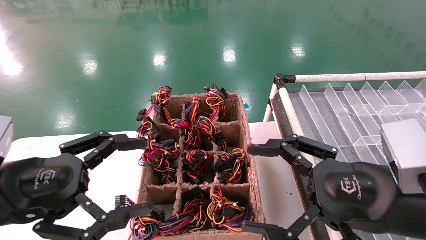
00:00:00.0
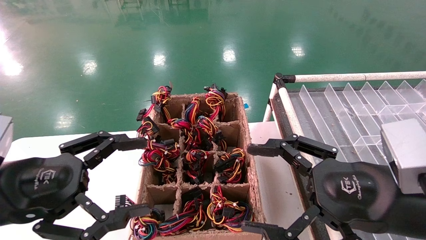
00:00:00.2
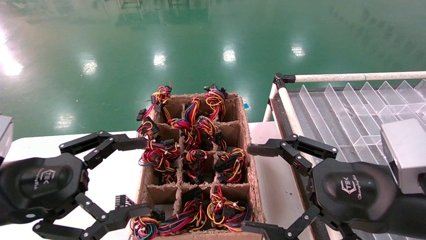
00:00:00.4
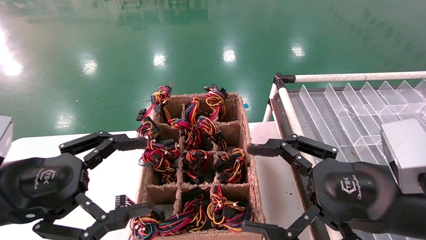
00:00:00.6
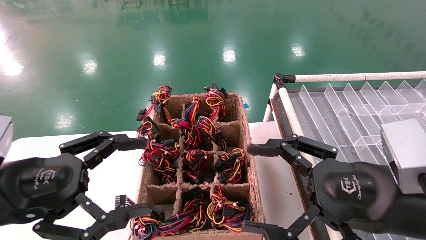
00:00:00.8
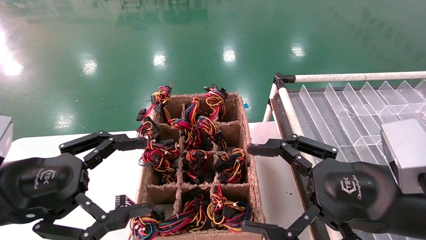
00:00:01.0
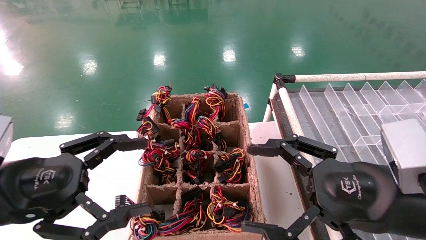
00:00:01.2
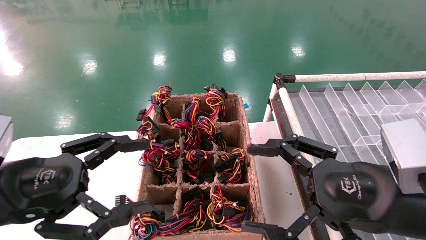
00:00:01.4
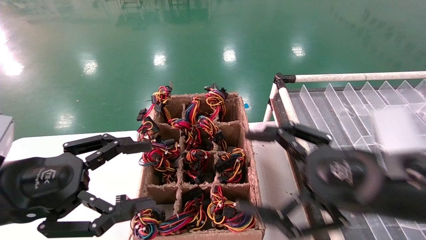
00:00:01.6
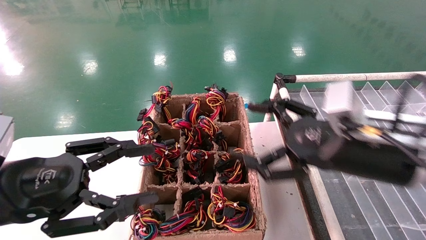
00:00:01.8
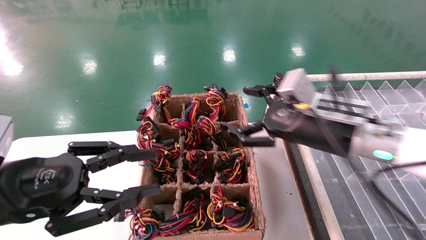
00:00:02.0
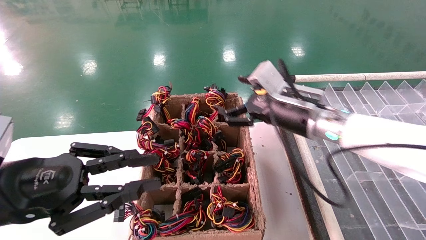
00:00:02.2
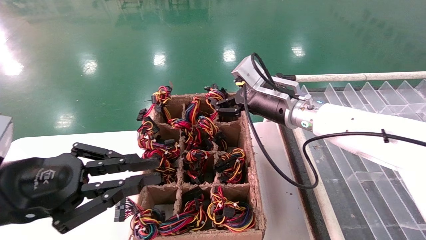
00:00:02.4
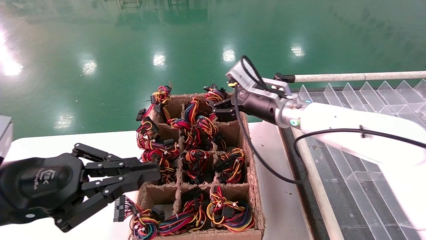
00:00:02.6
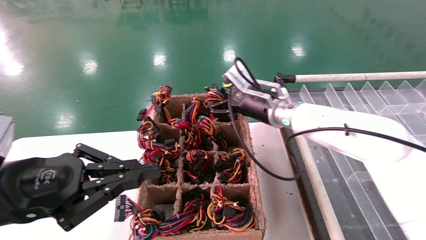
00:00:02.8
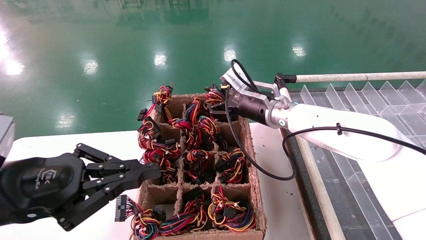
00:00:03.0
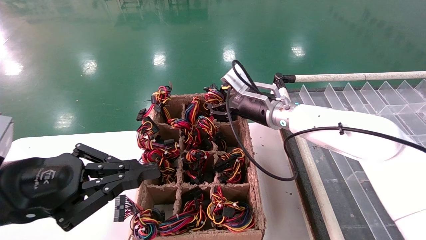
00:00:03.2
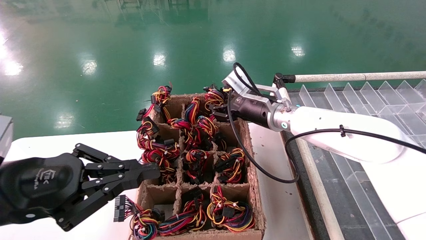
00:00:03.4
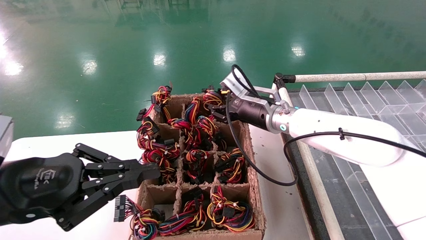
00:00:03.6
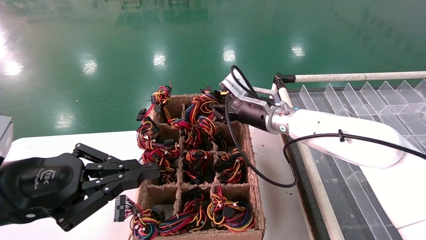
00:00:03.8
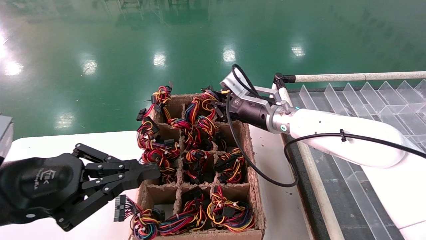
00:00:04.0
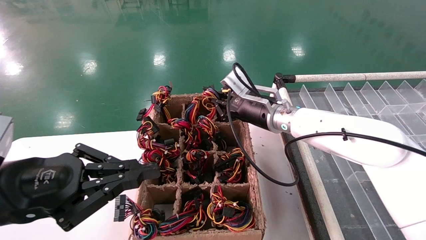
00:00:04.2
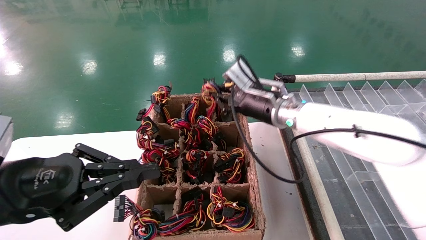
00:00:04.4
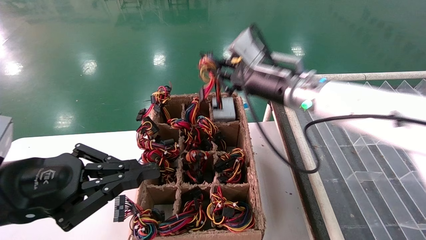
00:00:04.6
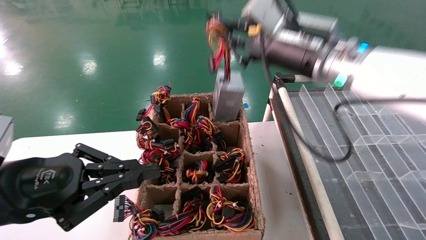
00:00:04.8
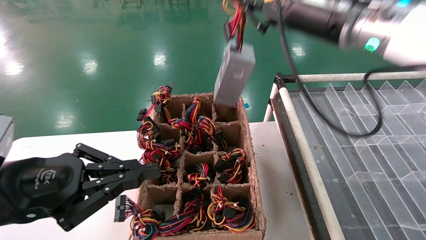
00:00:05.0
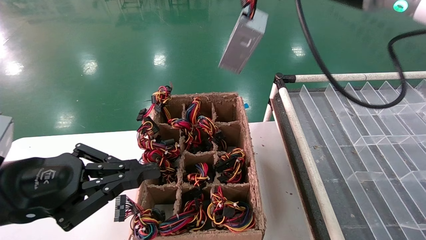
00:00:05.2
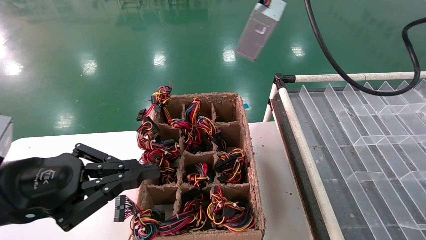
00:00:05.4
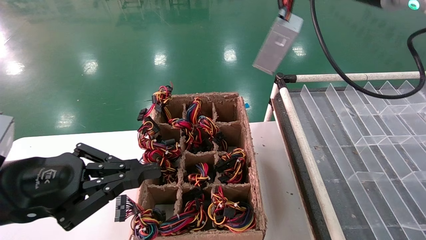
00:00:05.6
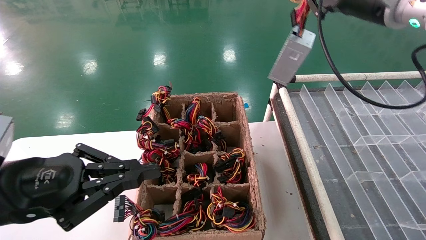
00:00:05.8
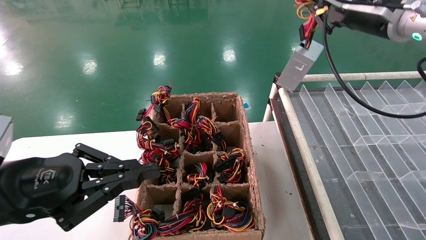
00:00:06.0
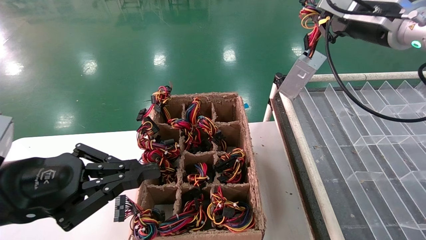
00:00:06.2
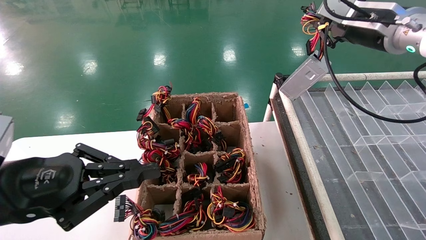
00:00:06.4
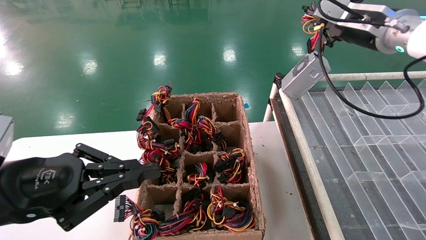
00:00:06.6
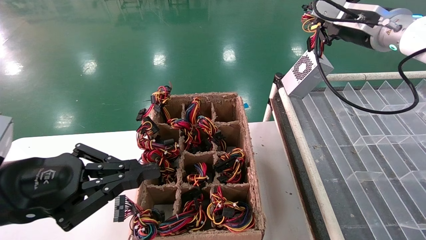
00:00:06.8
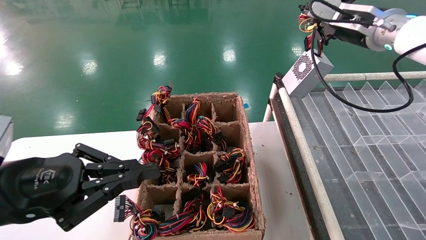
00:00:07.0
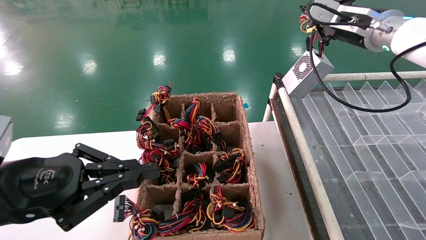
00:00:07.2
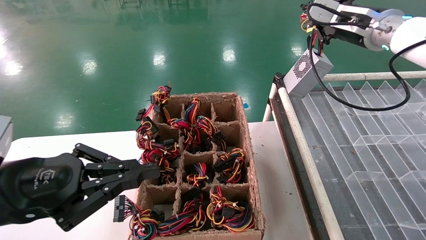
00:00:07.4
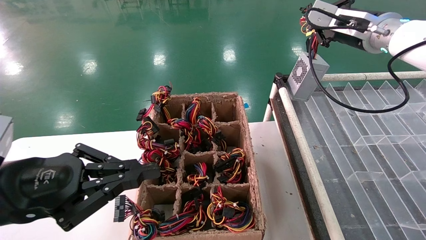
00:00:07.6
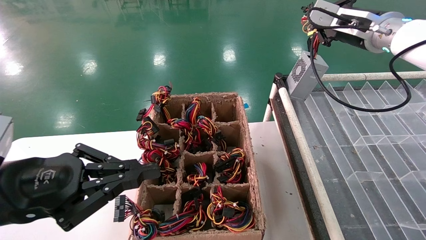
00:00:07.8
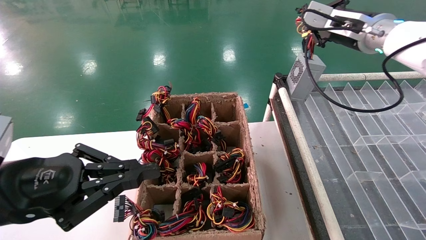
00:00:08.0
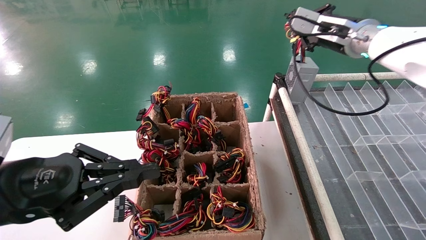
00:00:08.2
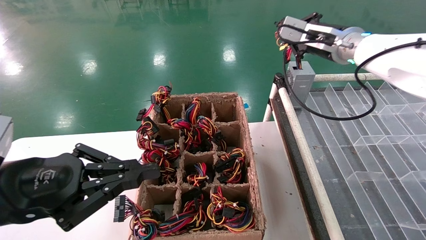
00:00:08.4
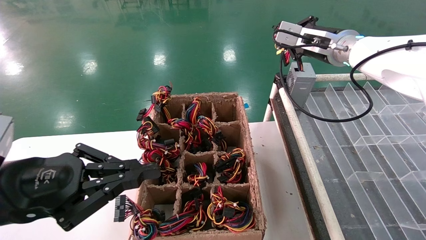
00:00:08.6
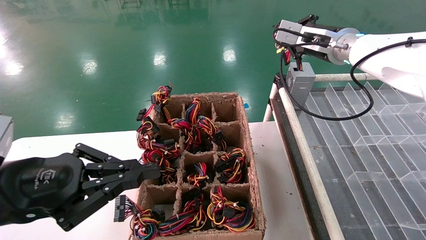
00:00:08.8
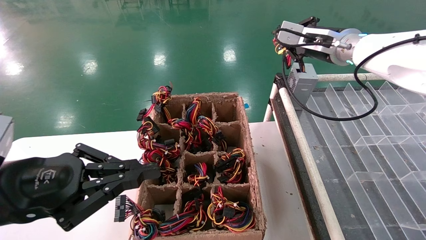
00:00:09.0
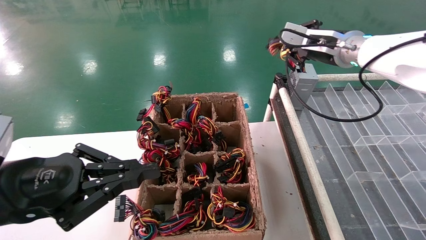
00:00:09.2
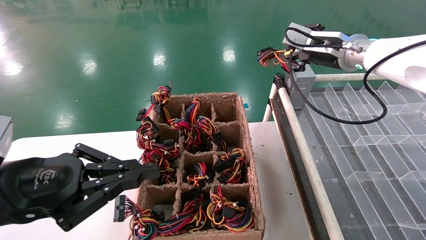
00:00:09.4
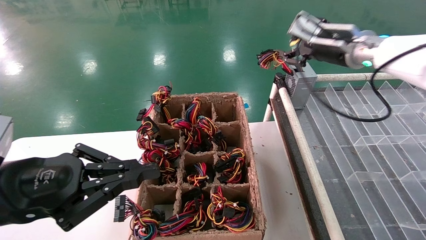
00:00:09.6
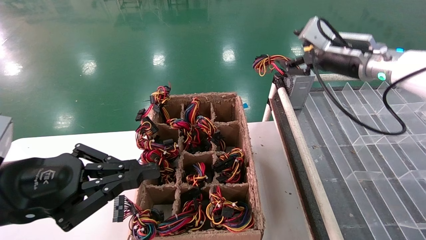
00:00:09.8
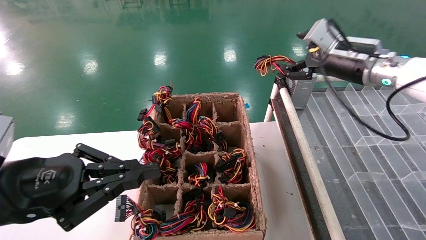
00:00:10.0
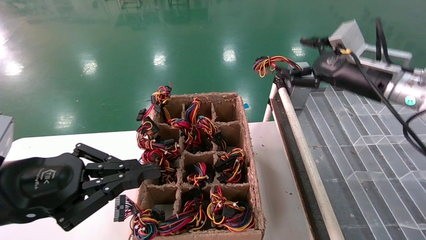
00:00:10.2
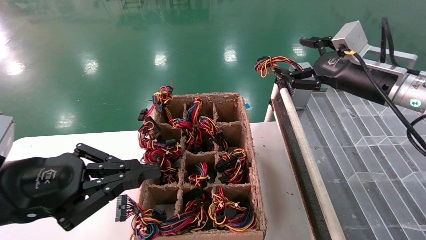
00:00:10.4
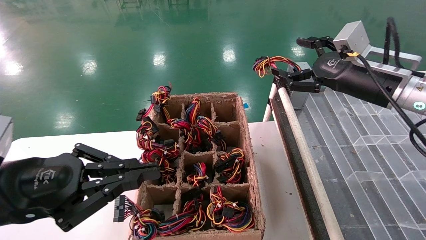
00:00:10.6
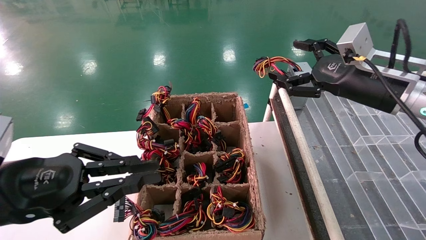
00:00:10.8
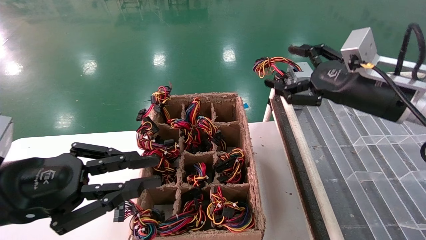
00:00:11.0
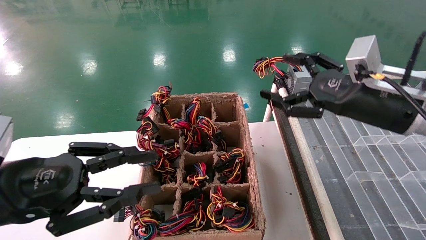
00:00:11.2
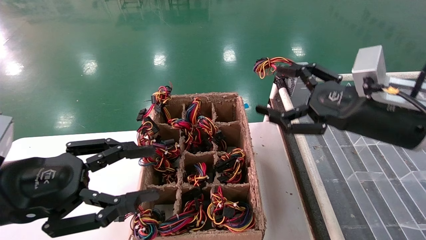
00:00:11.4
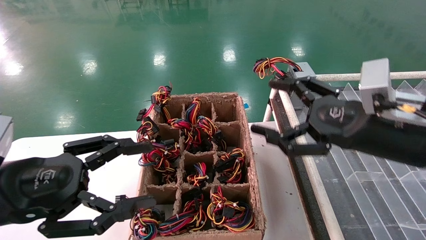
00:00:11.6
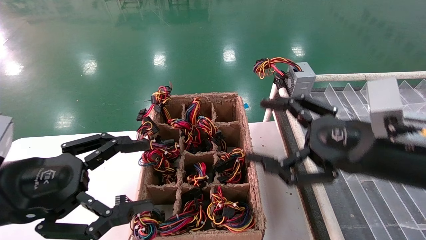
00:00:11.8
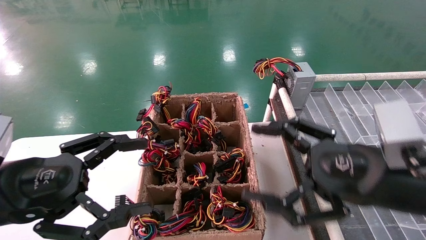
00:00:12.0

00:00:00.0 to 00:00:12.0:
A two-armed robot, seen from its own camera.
Step, 00:00:01.8 to 00:00:04.0: Grab the main unit power supply from the containment box.
Step, 00:00:04.2 to 00:00:09.6: Place the main unit power supply in the designated area.
00:00:00.0 to 00:00:01.6: The grippers stay close to where they were, moving slightly.
00:00:01.6 to 00:00:03.0: The right gripper goes some 25 cm forward and to the left. The left gripper closes its fingers.
00:00:03.0 to 00:00:04.4: The right gripper closes its fingers.
00:00:04.4 to 00:00:06.0: The right gripper heads upward and to the right, covering about 20 cm.
00:00:06.0 to 00:00:07.6: The right gripper is displaced forward by roughly 5 cm.
00:00:07.6 to 00:00:09.0: The right gripper moves some 5 cm.
00:00:09.0 to 00:00:10.4: The right gripper goes some 10 cm backward and downward, and opens up.
00:00:10.4 to 00:00:12.0: The left gripper opens; the right gripper moves backward and downward, roughly 20 cm.

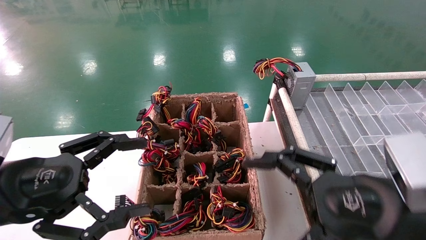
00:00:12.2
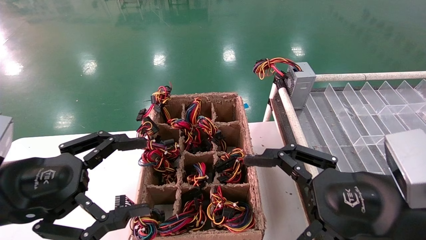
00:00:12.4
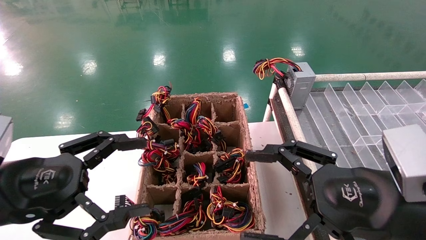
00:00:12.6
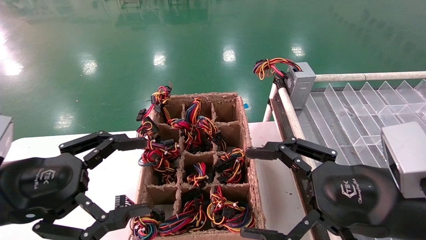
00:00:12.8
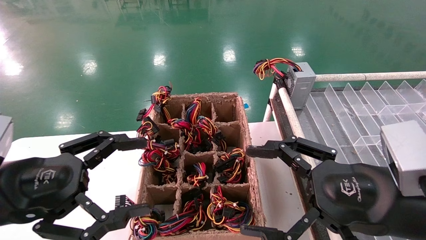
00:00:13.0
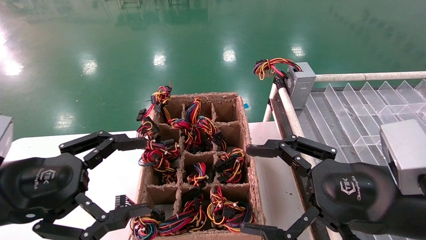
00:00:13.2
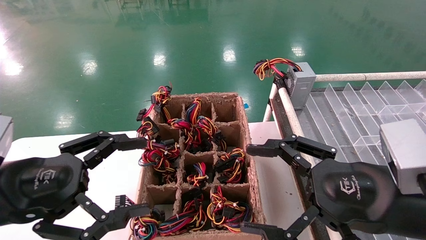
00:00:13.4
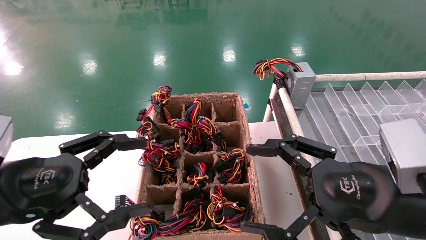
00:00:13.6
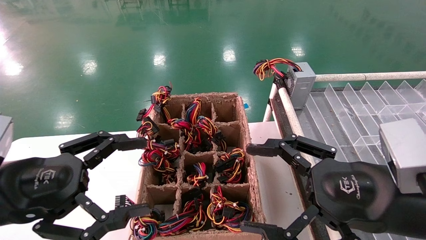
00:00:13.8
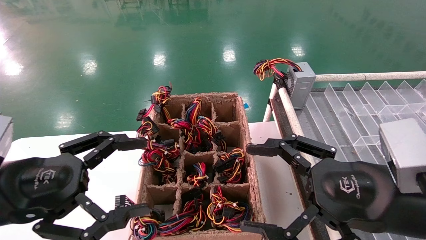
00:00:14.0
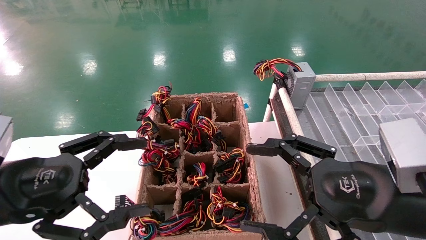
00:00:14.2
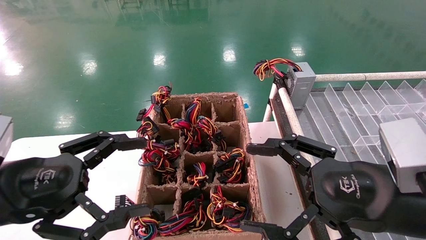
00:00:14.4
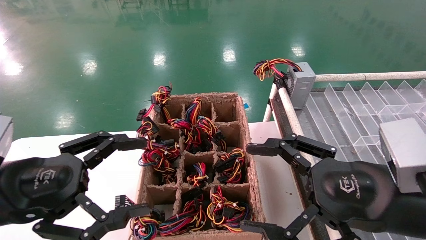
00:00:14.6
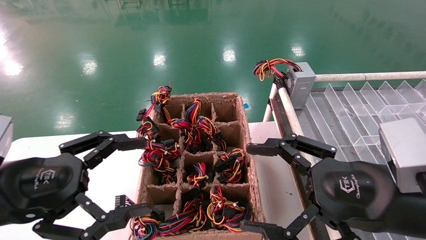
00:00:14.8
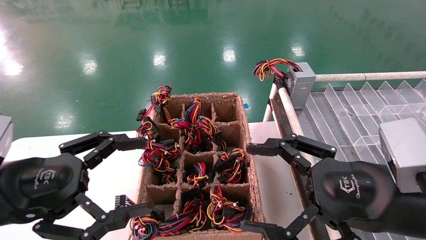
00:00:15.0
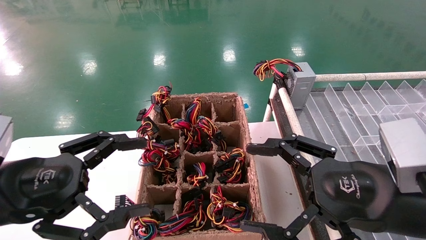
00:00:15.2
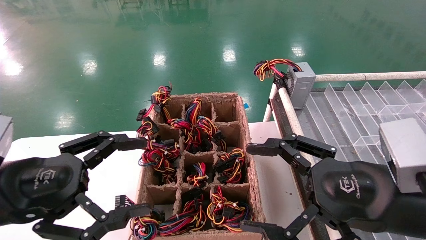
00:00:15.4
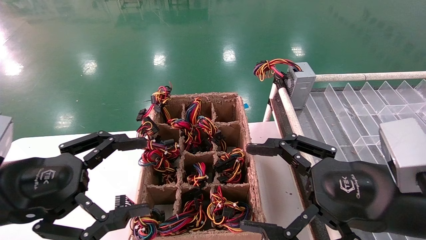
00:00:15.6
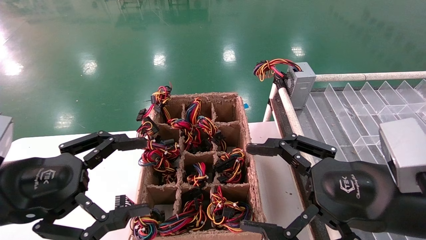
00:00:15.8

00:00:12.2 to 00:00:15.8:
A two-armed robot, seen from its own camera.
00:00:12.2 to 00:00:15.8: Neither gripper changes place.
